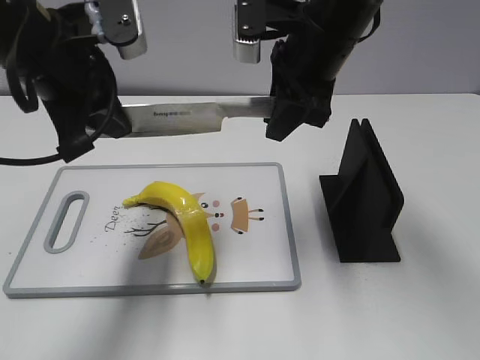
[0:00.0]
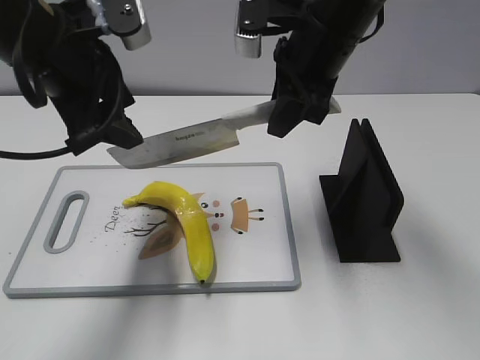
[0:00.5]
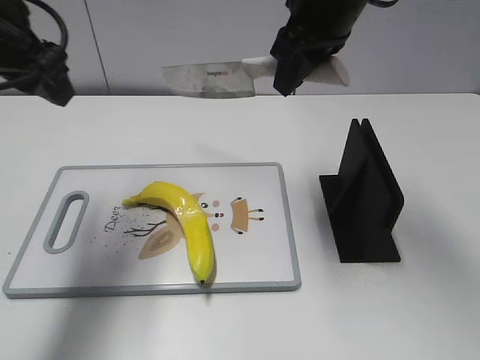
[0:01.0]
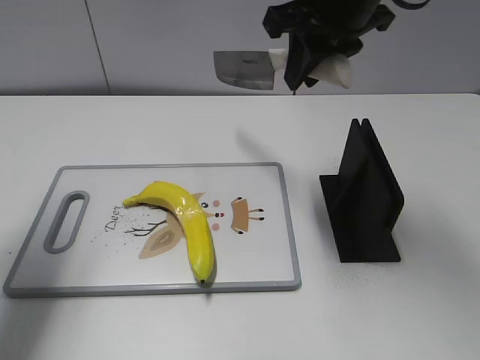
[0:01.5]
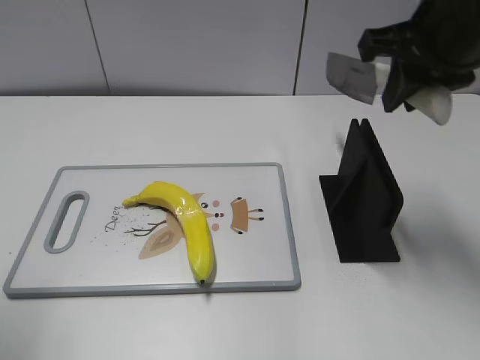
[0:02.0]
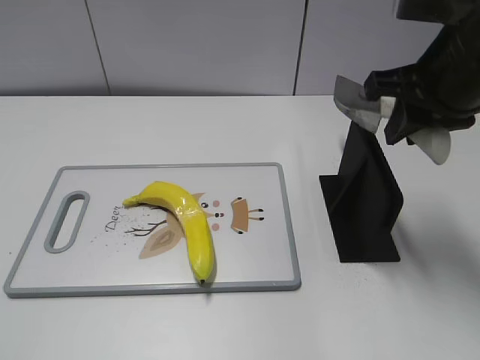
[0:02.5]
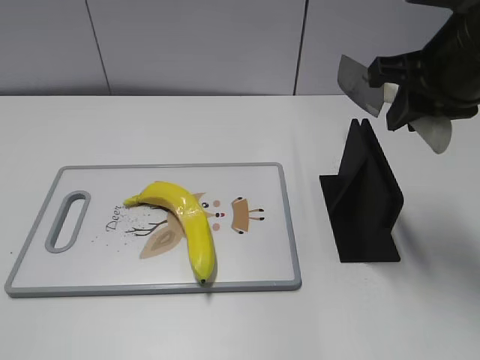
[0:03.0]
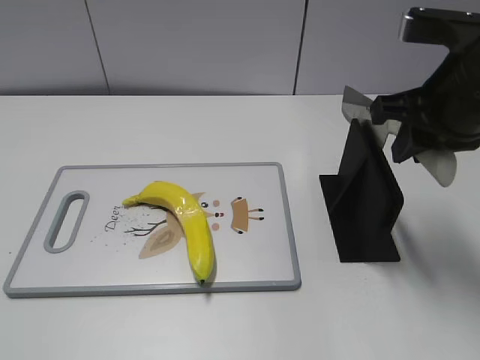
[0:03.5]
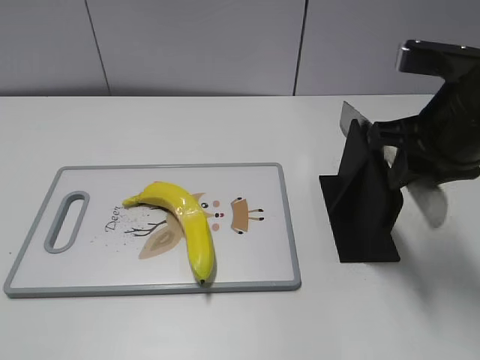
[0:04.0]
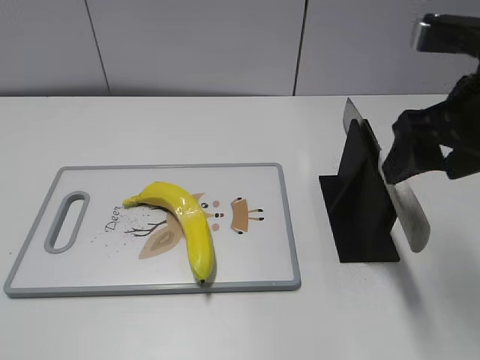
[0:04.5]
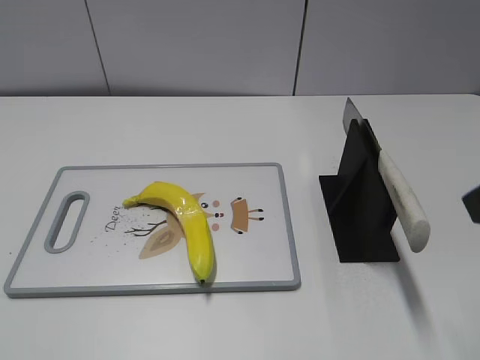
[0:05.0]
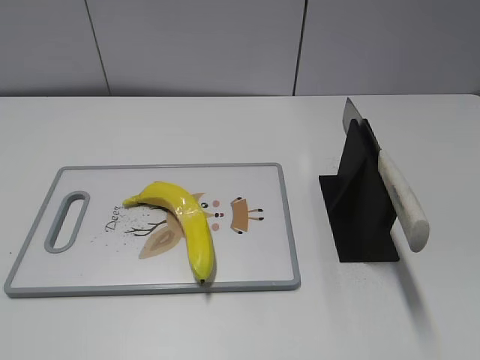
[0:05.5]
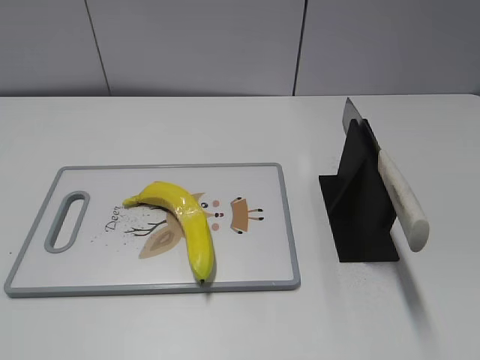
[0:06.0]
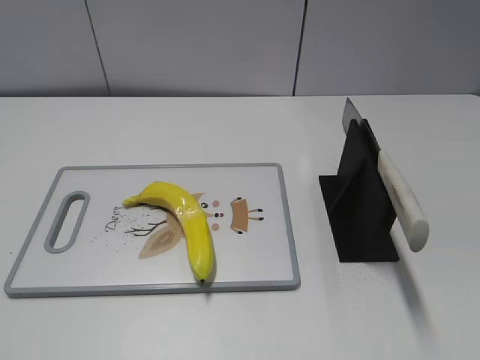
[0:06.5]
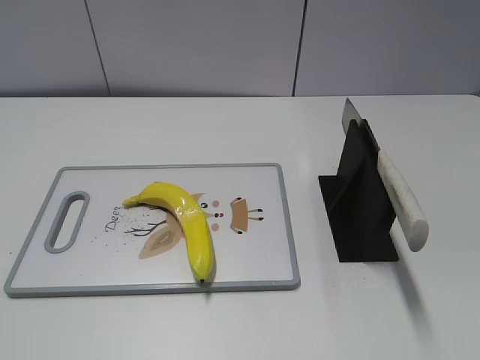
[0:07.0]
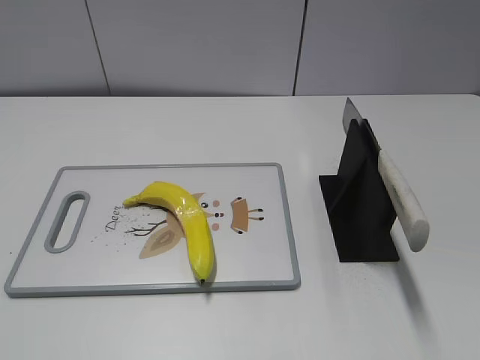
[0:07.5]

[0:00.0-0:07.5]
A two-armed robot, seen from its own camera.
Task of the whole recording: cut plastic banana.
Step, 0:00.0 to 0:01.0: Cut the banana with your right hand.
Step, 0:02.0 to 0:02.5: Lift the knife with your right hand.
Step, 0:03.0 to 0:07.5: Place the knife on the storage rack with your right hand.
0:00.0 to 0:02.0: The left gripper moves to the left and backward, some 20 cm, and opens up; the right gripper is displaced to the right and backward by roughly 10 cm.
0:02.0 to 0:04.0: The left gripper goes some 15 cm backward. The right gripper is displaced downward by some 5 cm.
0:04.0 to 0:05.5: The right gripper goes some 20 cm backward, and opens up.
